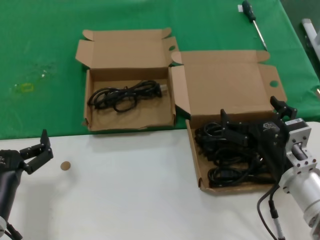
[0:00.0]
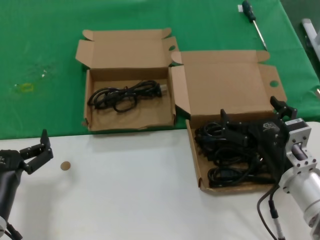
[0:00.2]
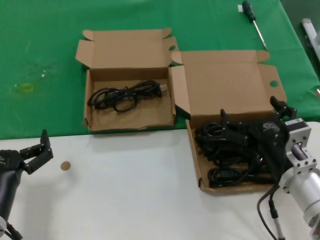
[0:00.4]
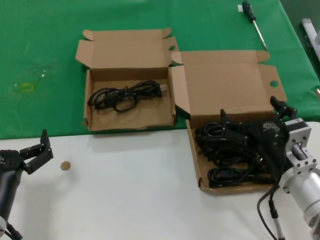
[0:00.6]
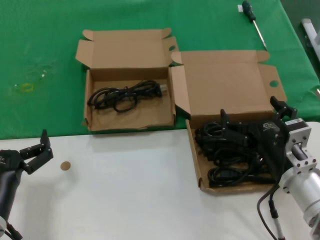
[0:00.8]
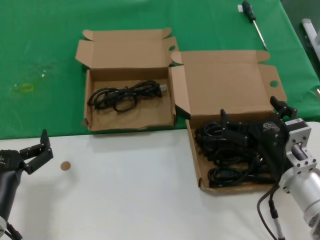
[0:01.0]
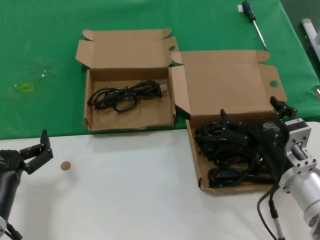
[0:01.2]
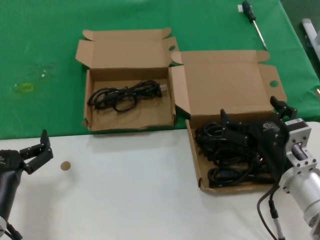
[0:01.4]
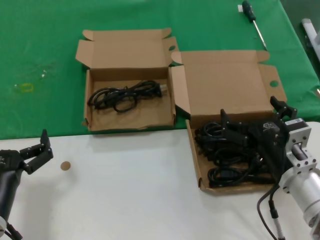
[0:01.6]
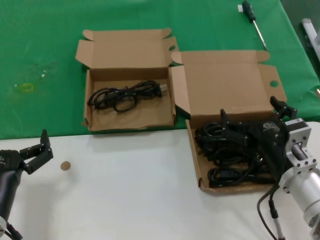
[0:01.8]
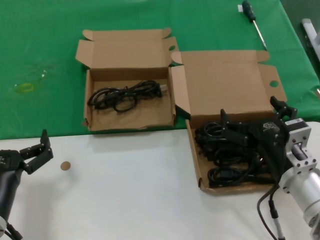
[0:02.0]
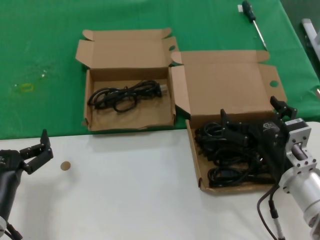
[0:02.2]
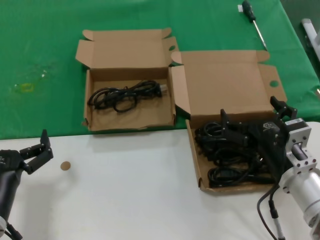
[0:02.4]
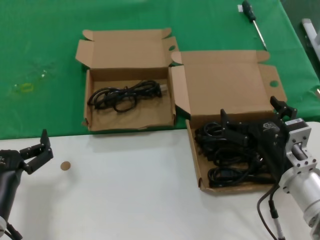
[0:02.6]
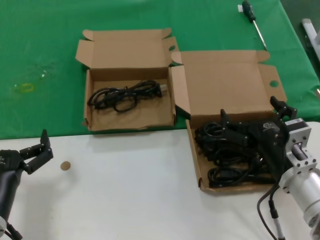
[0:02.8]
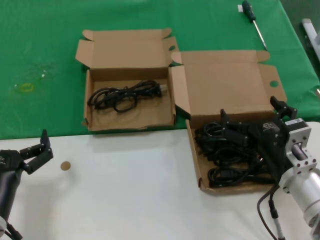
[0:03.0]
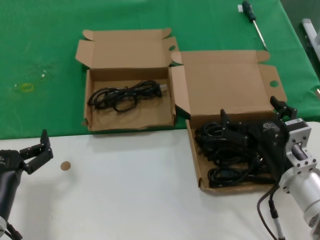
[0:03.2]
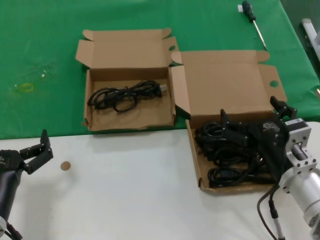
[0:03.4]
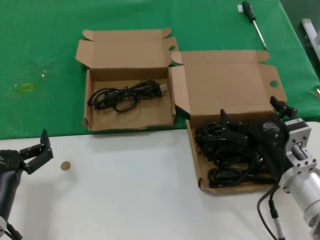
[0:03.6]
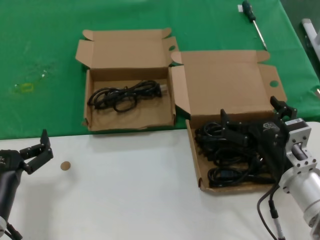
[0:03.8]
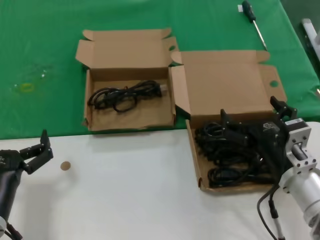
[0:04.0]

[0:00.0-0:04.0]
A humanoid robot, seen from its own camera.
Task of the whole recording: take the parts from the box containing them and put them into an empty box.
0:00.0 to 0:04.0: Both hands stay put.
